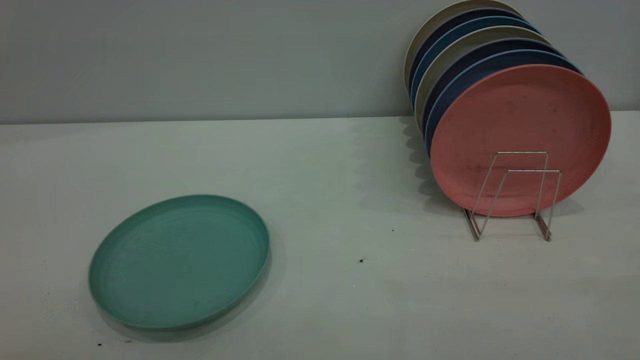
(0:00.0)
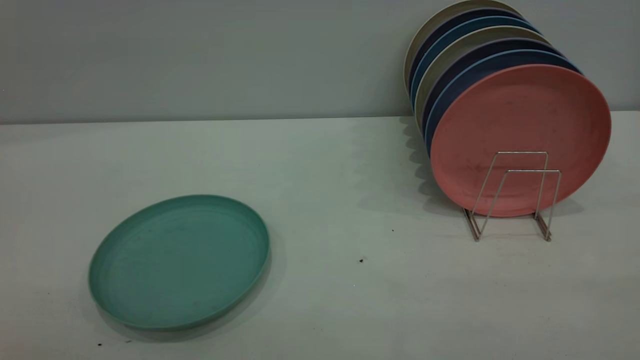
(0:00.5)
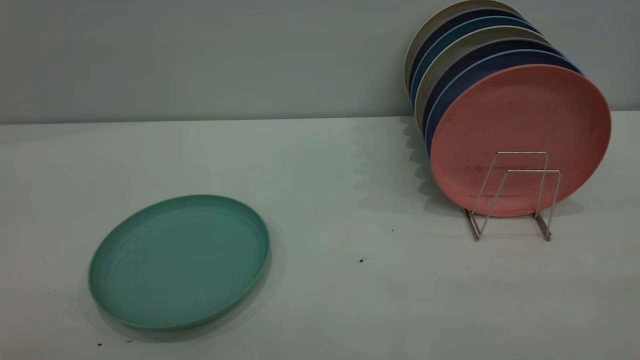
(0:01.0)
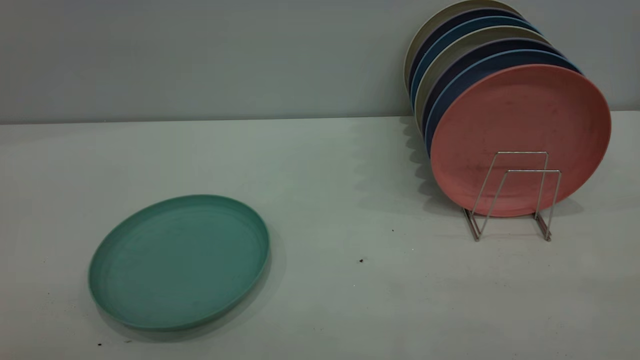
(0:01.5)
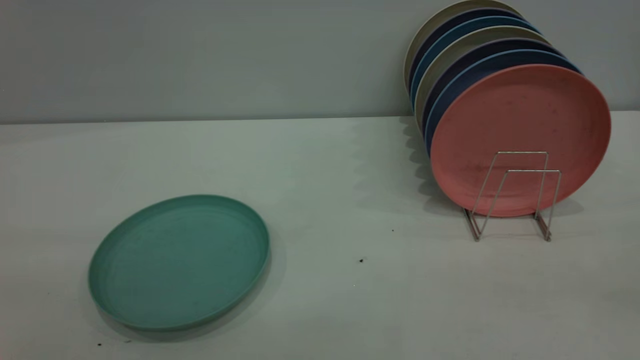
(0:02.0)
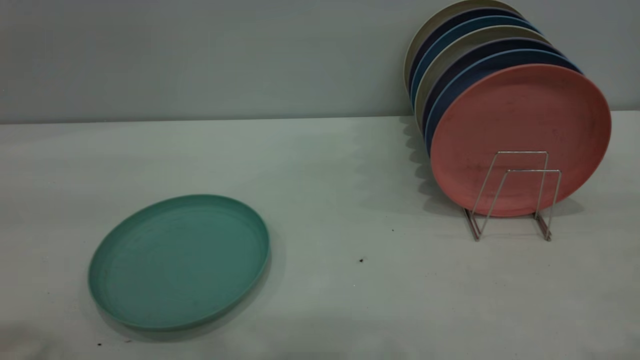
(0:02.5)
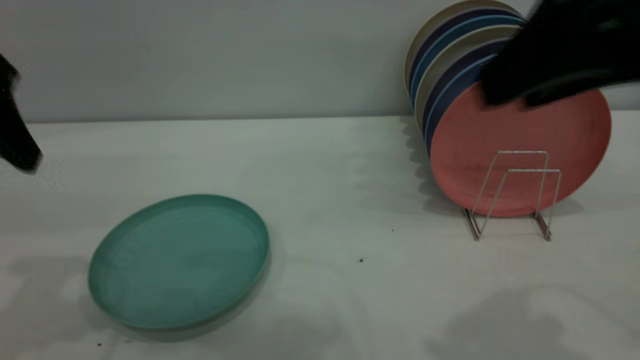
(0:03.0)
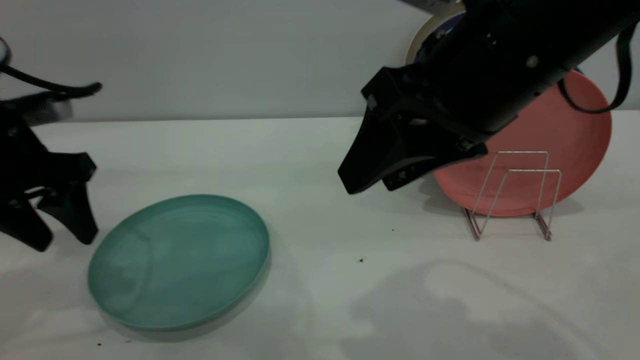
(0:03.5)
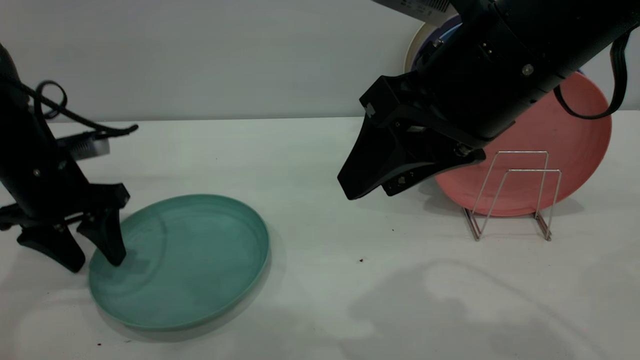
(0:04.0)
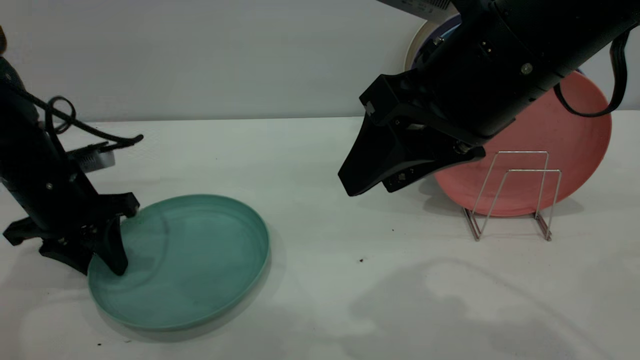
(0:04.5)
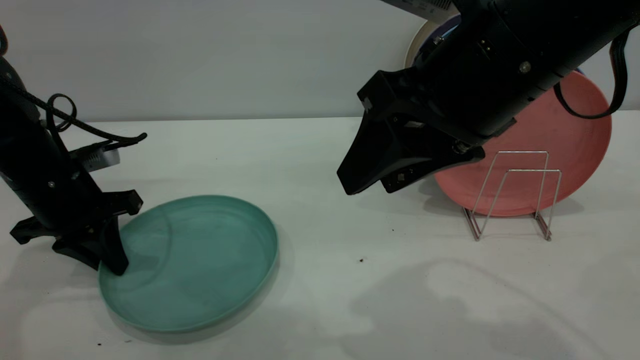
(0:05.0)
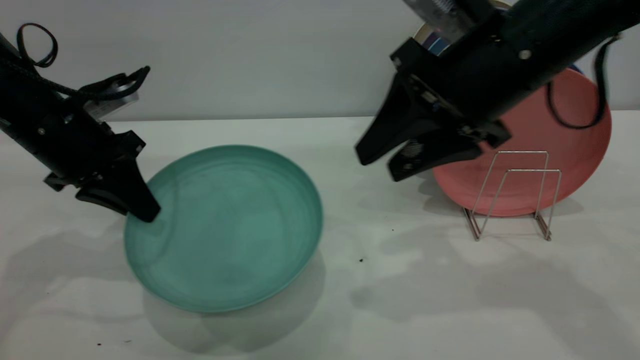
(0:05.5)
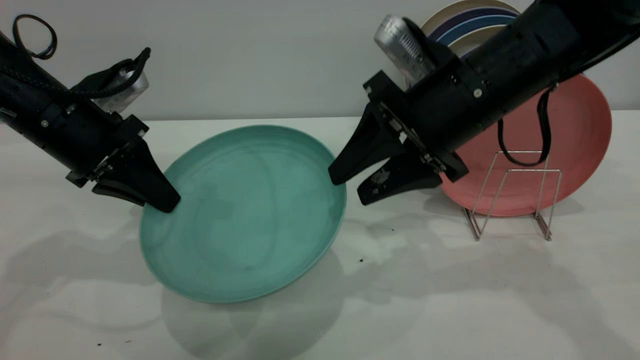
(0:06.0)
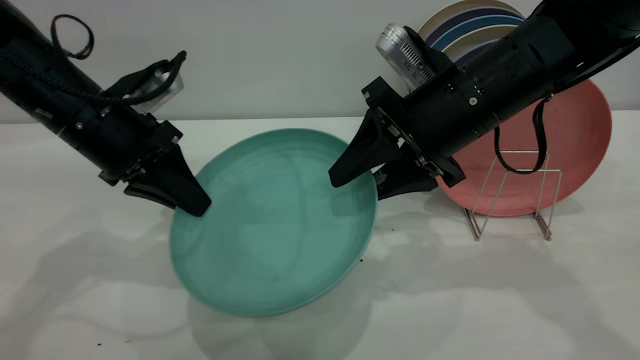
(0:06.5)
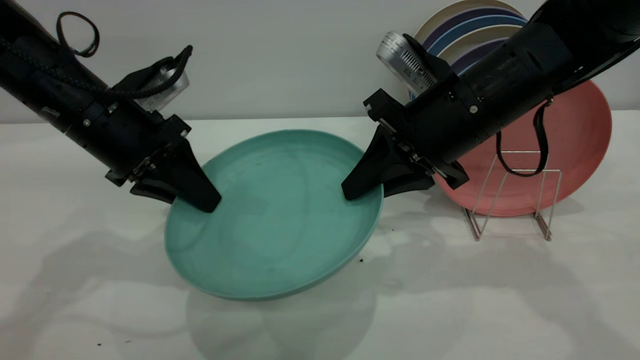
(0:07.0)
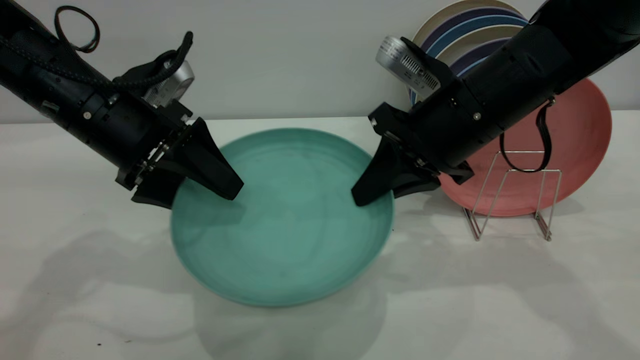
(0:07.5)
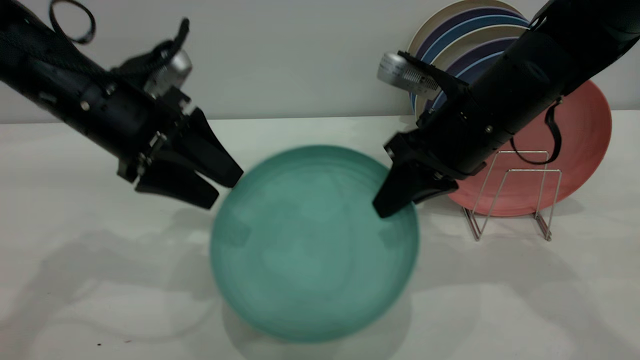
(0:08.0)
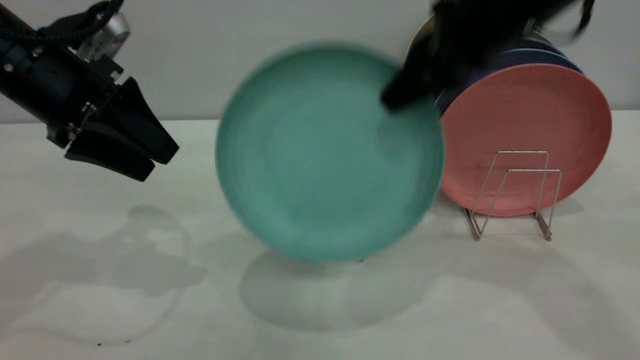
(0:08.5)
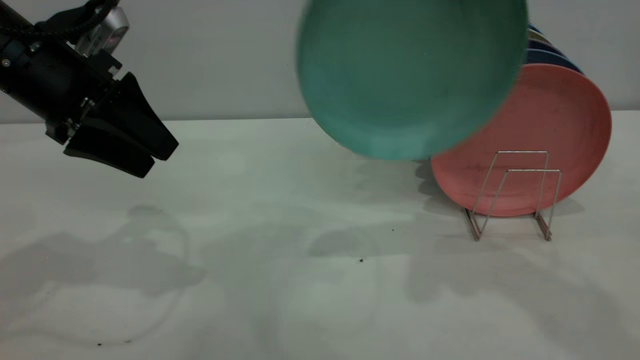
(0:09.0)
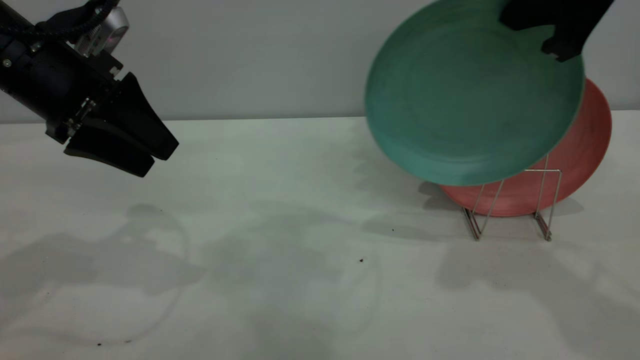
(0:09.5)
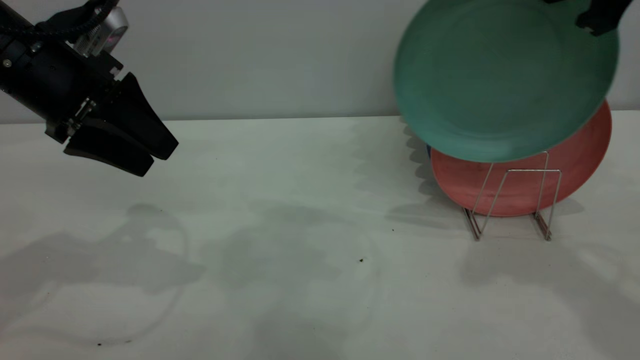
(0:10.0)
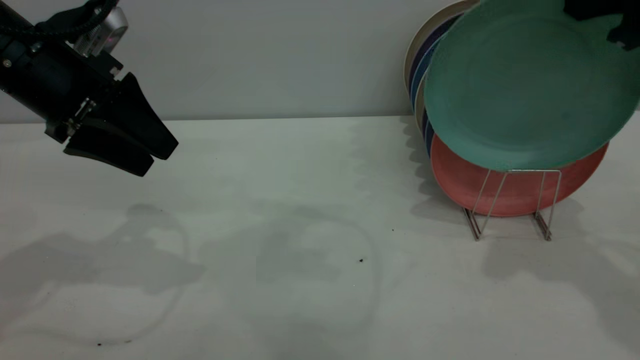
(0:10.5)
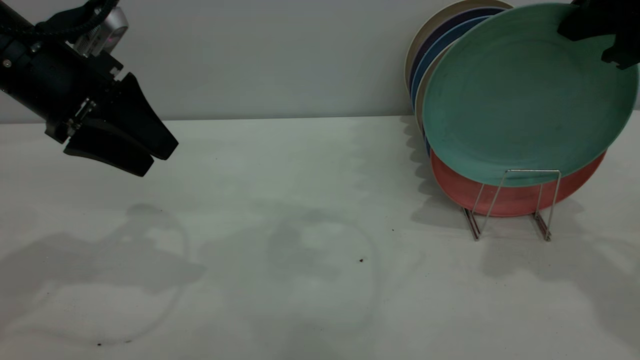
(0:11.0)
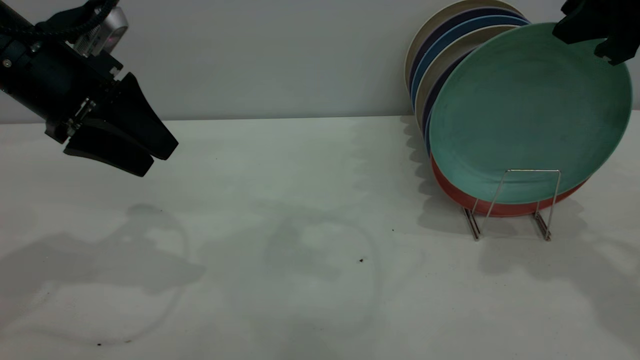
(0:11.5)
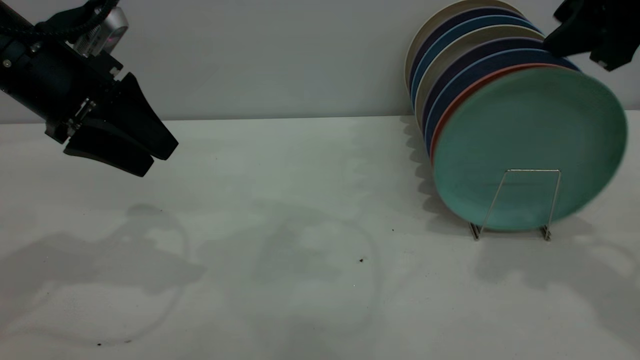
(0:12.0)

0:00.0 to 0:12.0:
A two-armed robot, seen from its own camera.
Task of the whole recording: the left gripper grasp the green plate, the left gripper pass the green plate to the right gripper, and the right gripper place the green plate on the plate rack.
Step, 0:00.0 to 0:05.0: Pick up the plate with the left gripper.
Step, 0:06.0 to 0:08.0: Pass the plate from the left gripper to the right gripper.
0:02.0 to 0:04.0: The right gripper heads forward, to the left and downward, covering some 30 cm, while the left gripper shifts some 40 cm forward and downward.
0:04.0 to 0:06.0: The right gripper shifts approximately 10 cm forward and downward, while the left gripper changes place by about 5 cm, and closes its fingers.
0:06.0 to 0:08.0: The right gripper closes. Meanwhile the left gripper ends up approximately 5 cm from where it was, and opens.
0:08.0 to 0:10.0: The right gripper is displaced upward and to the right by some 20 cm, while the left gripper ends up some 5 cm from where it was.
0:10.0 to 0:12.0: The right gripper opens up.

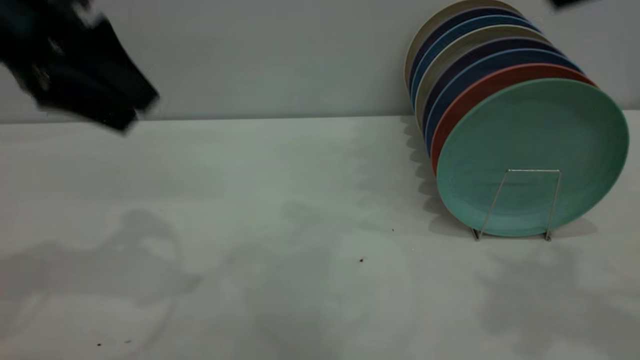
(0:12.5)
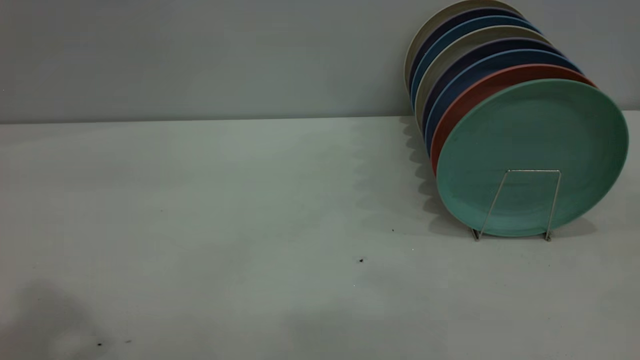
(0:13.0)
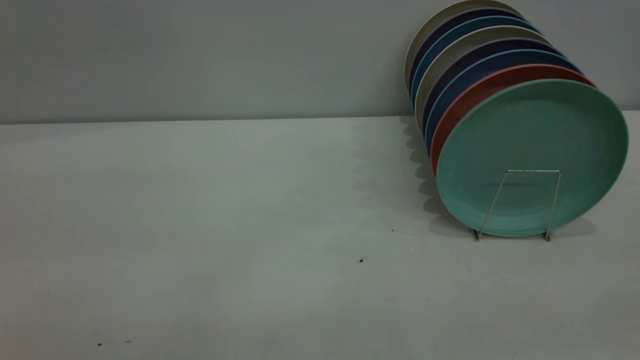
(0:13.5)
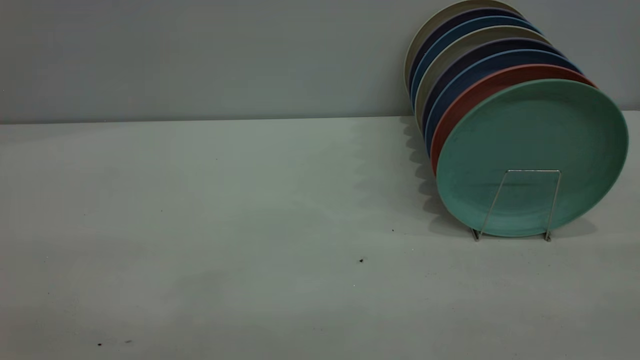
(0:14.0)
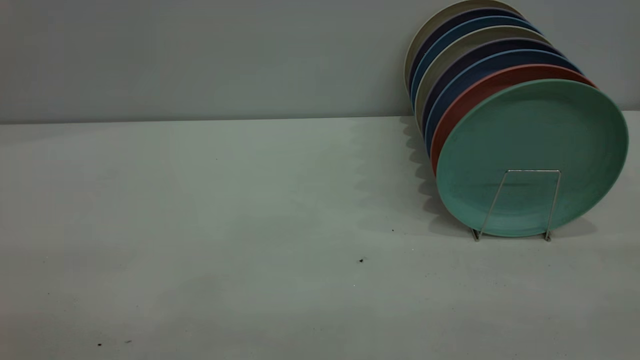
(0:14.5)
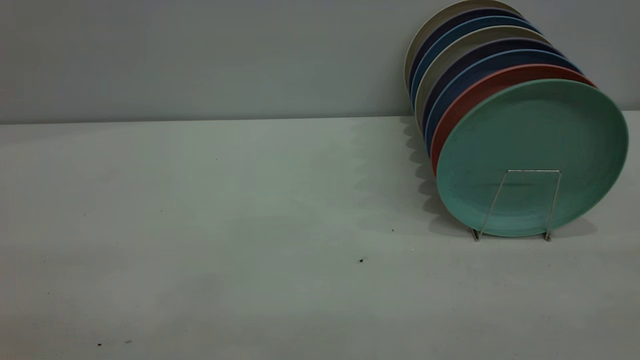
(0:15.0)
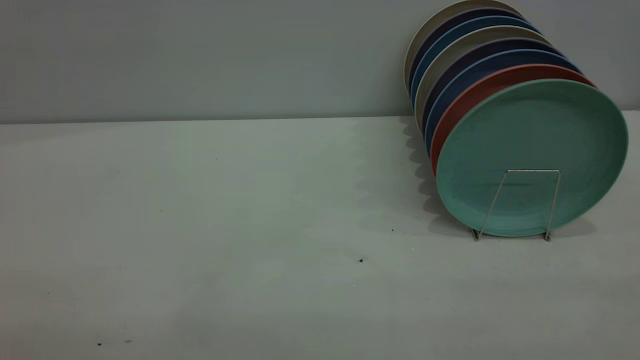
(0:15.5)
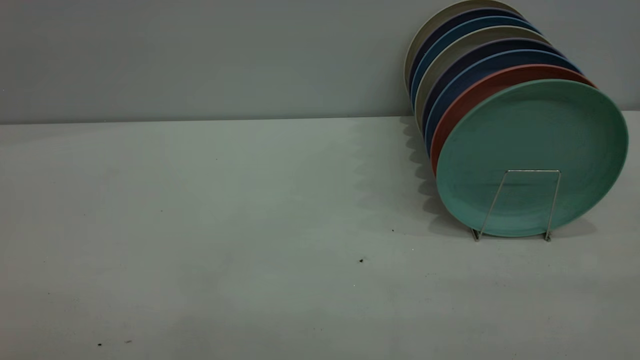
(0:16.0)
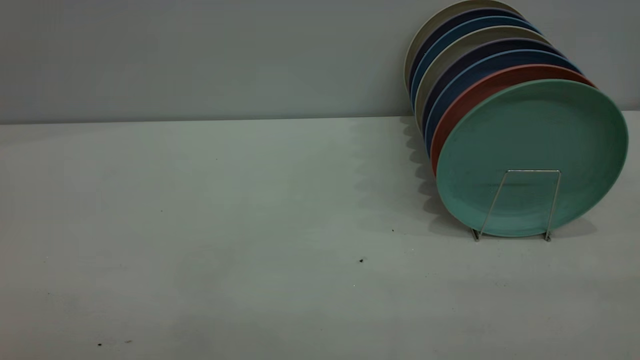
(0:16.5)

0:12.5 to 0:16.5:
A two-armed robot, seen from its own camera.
Task of the whole recording: the left gripper grasp the green plate, the left gripper pass the green plate to the right gripper, and the right gripper place the green plate on the plate rack.
0:12.5 to 0:14.5: The left gripper shifts some 25 cm backward.
